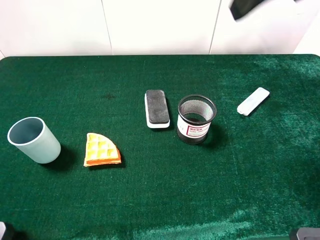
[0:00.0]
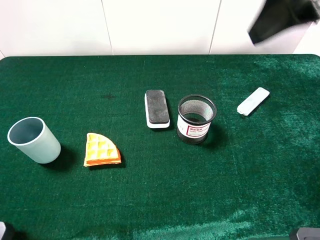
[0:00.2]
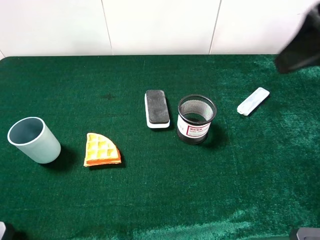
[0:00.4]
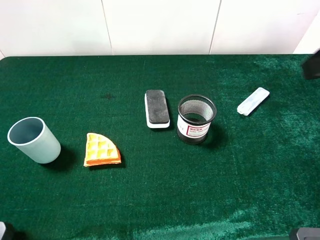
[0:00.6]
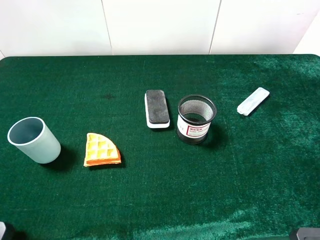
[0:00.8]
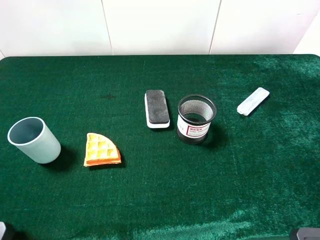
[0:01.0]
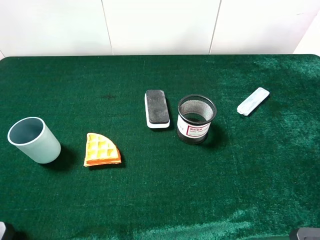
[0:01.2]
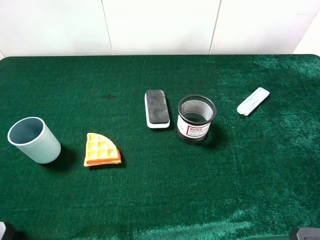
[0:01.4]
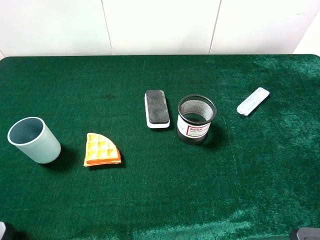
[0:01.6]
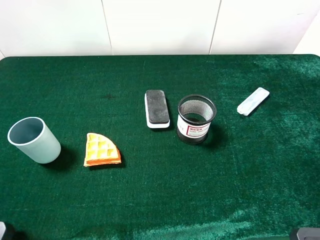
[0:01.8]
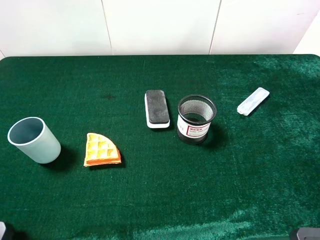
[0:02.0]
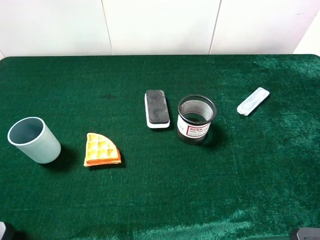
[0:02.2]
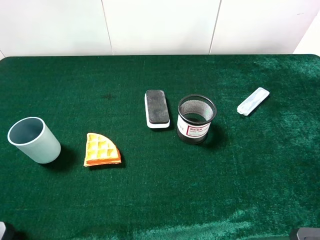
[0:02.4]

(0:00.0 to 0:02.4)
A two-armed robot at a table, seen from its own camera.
Task of the whole recording: the gripper move the object.
0:00.0 - 0:01.2: The right gripper goes roughly 25 cm backward, to the right and downward.
